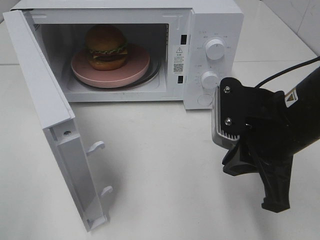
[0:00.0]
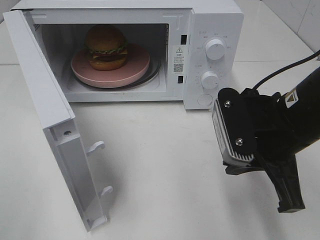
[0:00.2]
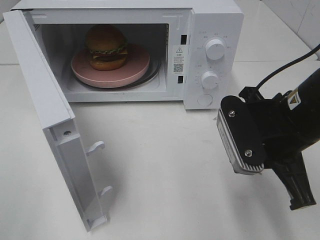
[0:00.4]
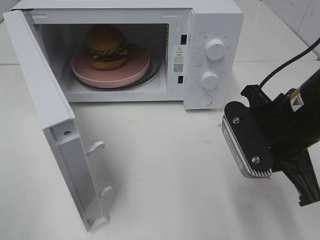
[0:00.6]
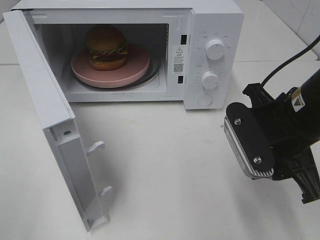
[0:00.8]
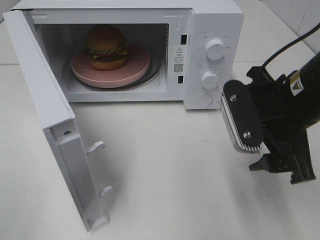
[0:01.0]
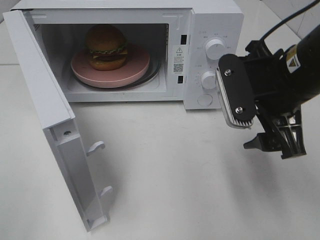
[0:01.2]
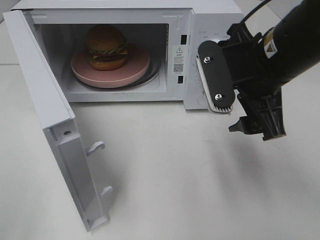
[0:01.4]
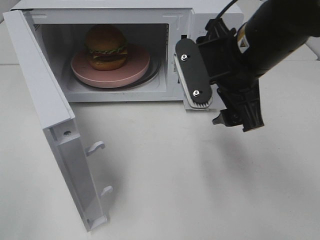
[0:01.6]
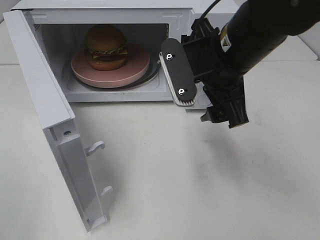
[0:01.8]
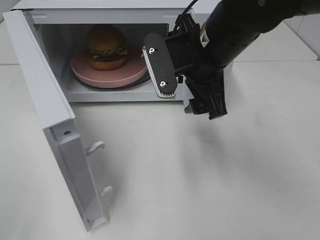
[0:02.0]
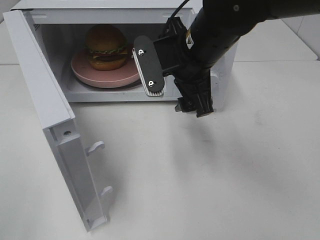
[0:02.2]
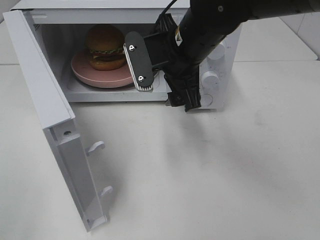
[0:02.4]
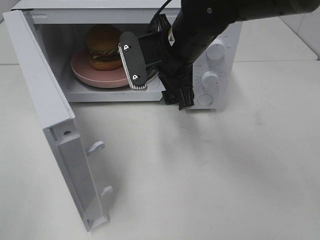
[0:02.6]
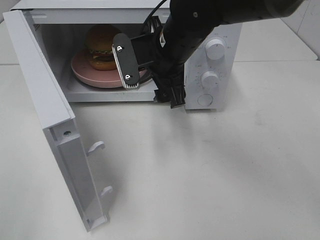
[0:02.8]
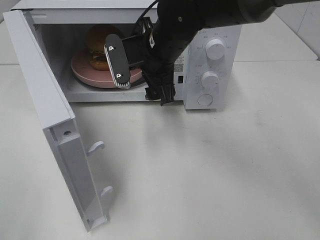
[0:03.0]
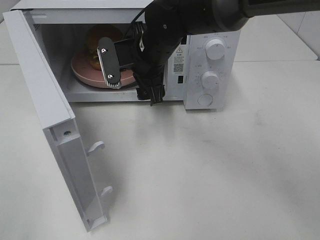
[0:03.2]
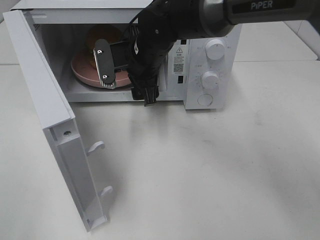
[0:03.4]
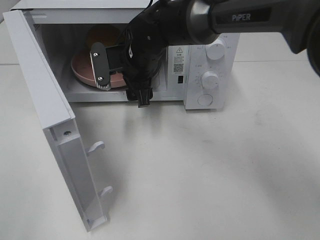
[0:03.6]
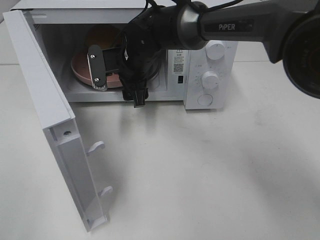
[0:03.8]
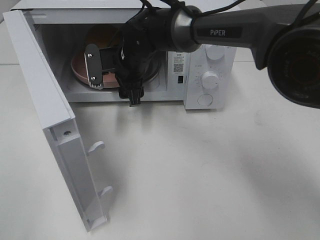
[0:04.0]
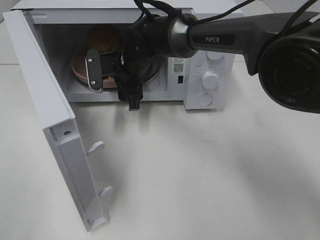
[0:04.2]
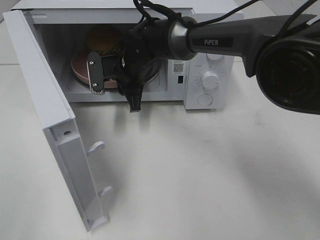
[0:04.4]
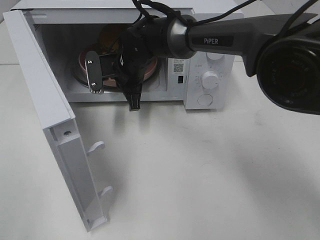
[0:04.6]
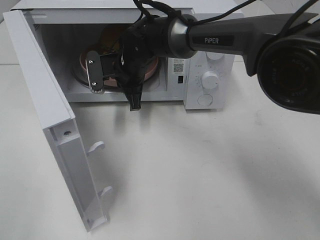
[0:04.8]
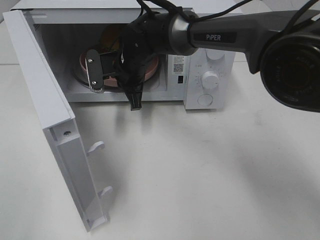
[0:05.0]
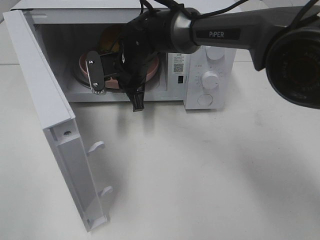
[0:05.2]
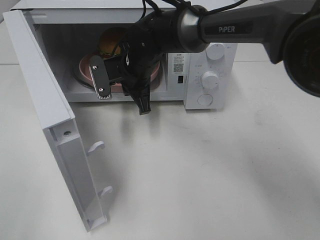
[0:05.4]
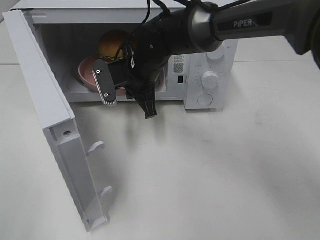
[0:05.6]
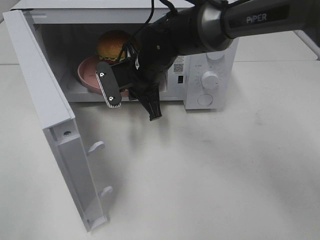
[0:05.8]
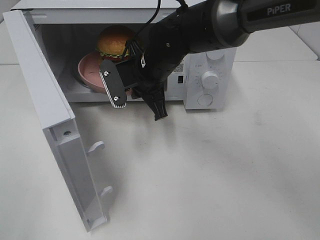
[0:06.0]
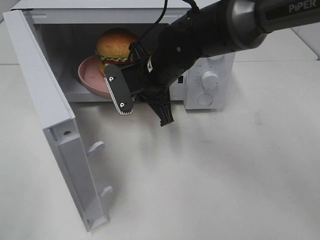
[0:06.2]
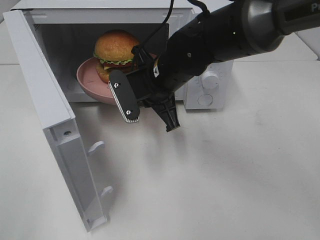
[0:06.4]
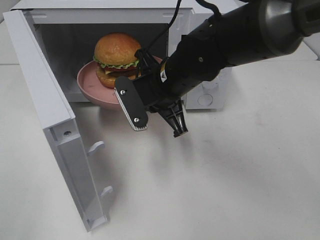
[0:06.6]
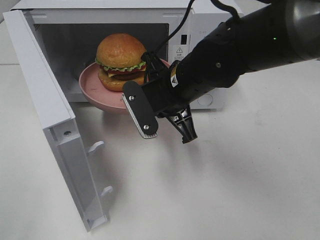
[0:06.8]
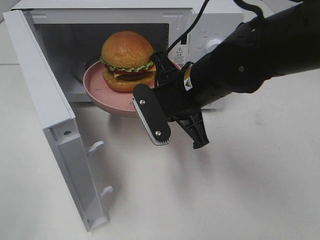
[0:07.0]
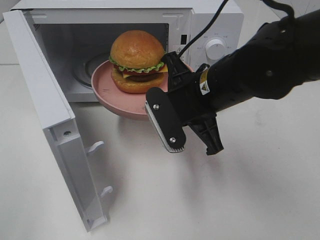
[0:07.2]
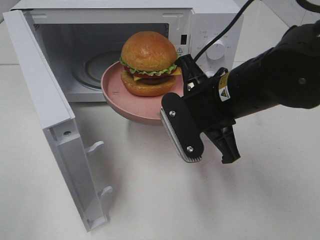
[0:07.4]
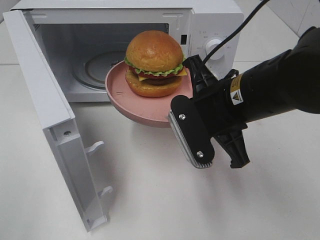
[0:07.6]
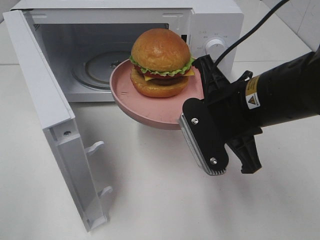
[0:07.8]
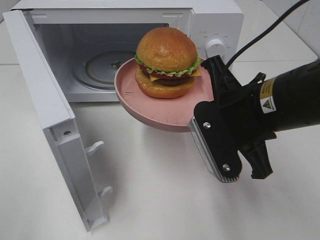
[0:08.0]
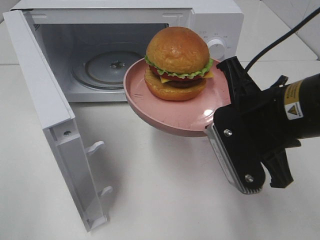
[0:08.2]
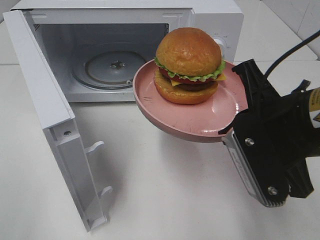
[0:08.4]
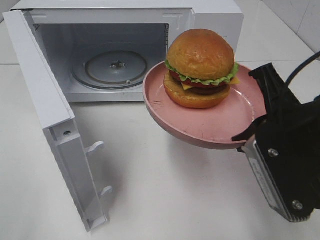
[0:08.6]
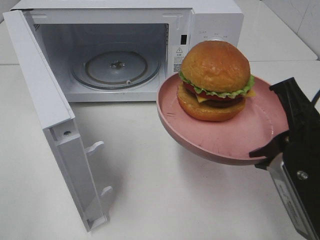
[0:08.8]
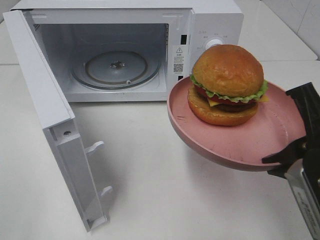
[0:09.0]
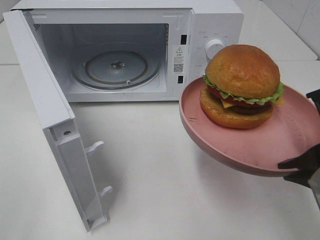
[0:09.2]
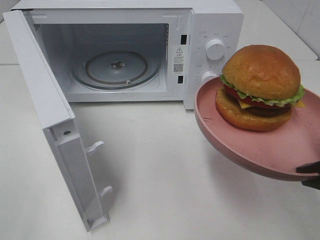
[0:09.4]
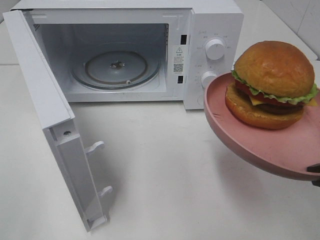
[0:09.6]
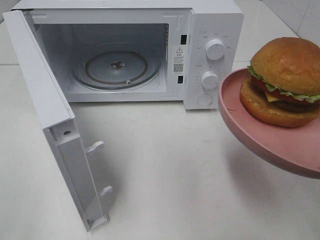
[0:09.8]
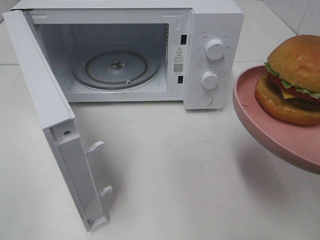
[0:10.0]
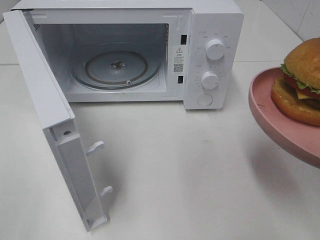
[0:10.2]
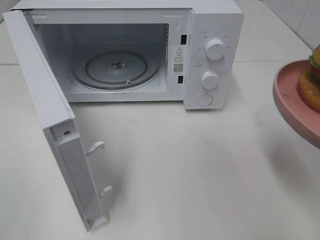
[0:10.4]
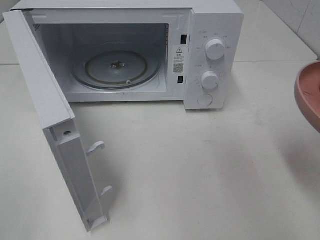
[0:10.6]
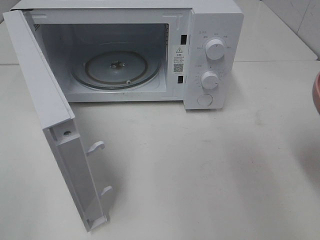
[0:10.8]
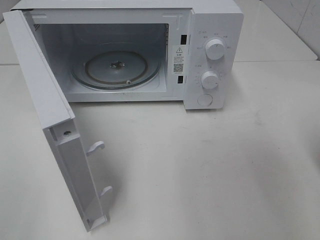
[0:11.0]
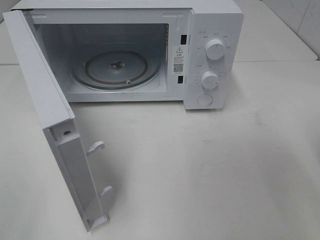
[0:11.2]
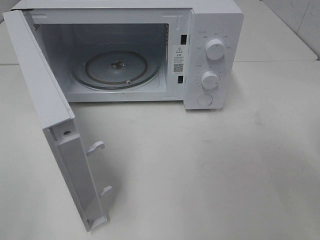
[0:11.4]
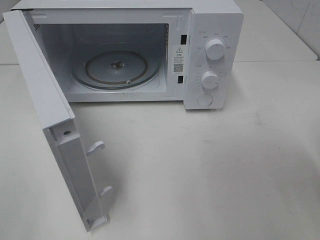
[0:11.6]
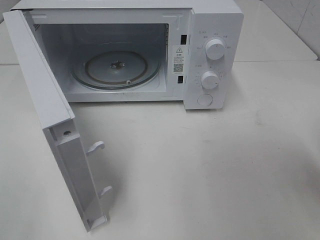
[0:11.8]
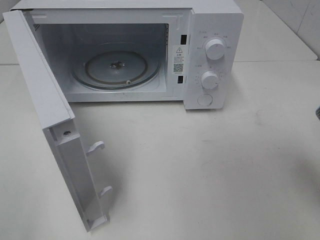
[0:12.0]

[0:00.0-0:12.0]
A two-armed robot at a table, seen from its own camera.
Task of the whole recording: Heat the burger.
Step, 0:00.0 to 0:04.6: Right hand: grab the plate with the hamburger.
0:00.0 to 0:01.6: The right gripper goes some 5 cm forward, and opens.
0:01.6 to 0:03.0: The right gripper travels forward and to the left by roughly 15 cm.
0:03.0 to 0:04.4: The right gripper is displaced downward, forward and to the left by some 10 cm, and closes its fingers.
0:04.4 to 0:06.0: The right gripper moves backward, roughly 5 cm.
0:06.0 to 0:07.6: The right gripper travels backward and to the right by roughly 15 cm.
0:07.6 to 0:09.0: The right gripper moves backward and to the right, some 15 cm.
0:09.0 to 0:10.4: The right gripper is displaced to the right by about 5 cm.
0:10.4 to 0:12.0: The right gripper moves forward, about 5 cm.

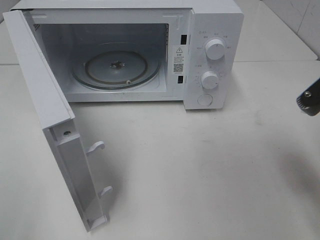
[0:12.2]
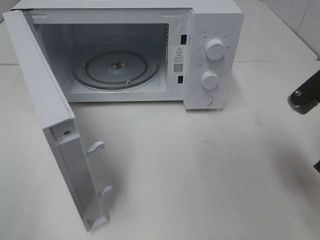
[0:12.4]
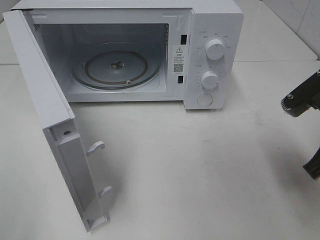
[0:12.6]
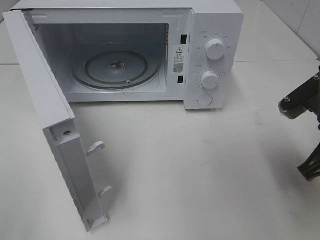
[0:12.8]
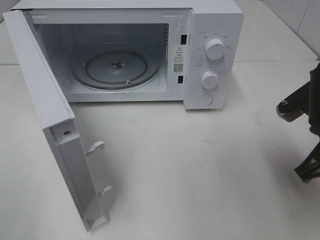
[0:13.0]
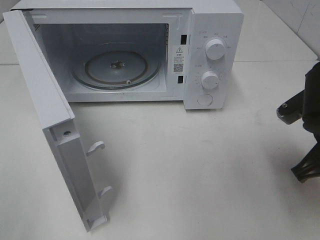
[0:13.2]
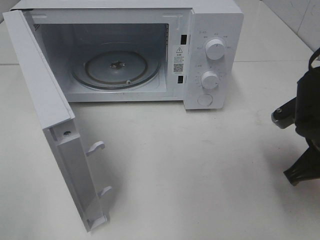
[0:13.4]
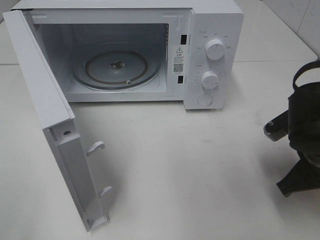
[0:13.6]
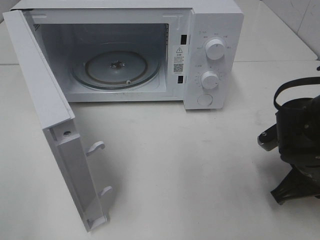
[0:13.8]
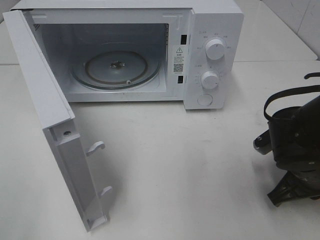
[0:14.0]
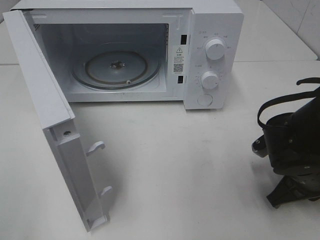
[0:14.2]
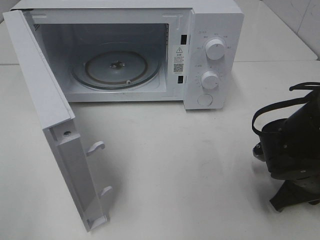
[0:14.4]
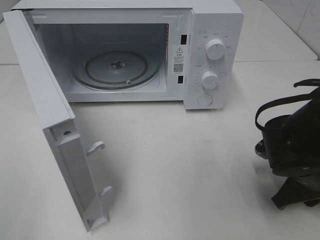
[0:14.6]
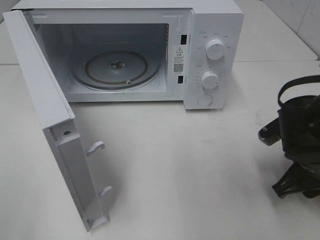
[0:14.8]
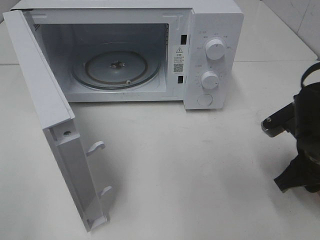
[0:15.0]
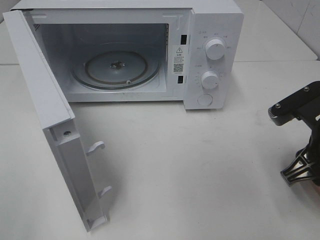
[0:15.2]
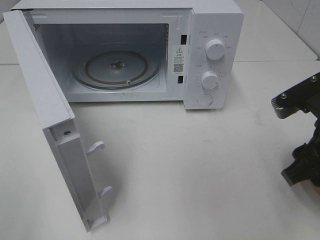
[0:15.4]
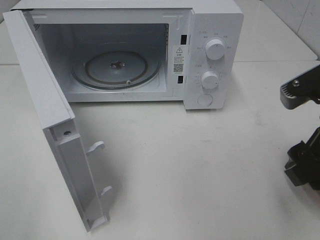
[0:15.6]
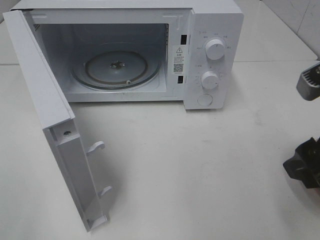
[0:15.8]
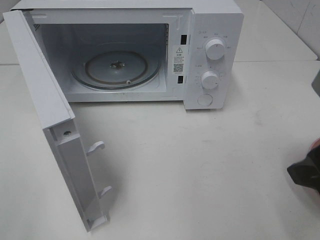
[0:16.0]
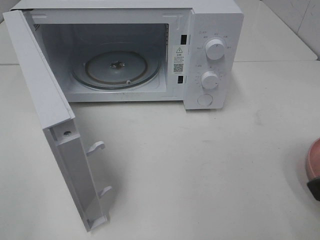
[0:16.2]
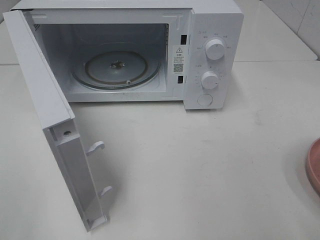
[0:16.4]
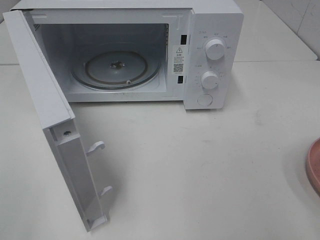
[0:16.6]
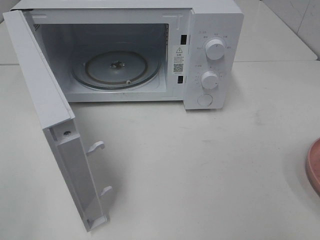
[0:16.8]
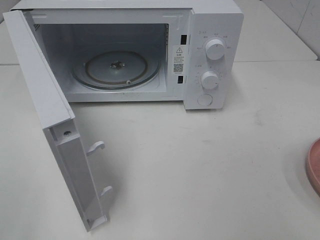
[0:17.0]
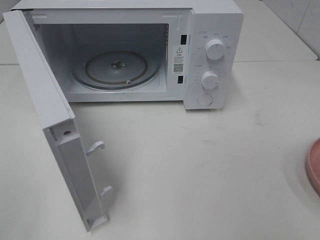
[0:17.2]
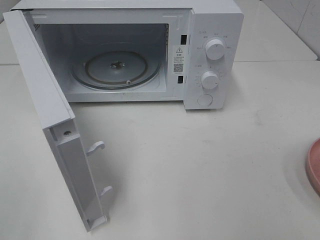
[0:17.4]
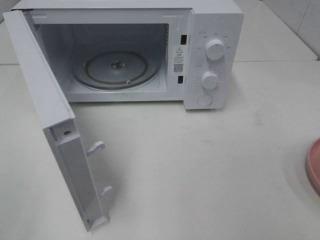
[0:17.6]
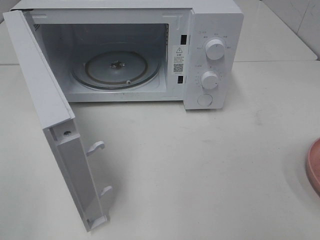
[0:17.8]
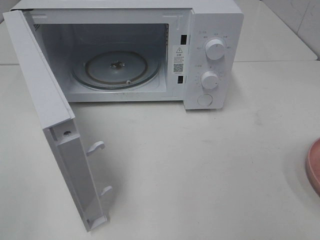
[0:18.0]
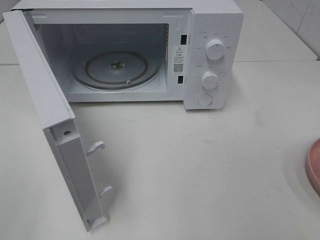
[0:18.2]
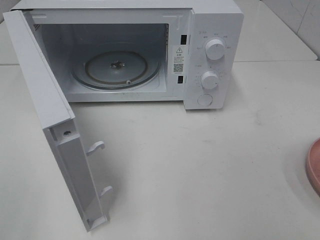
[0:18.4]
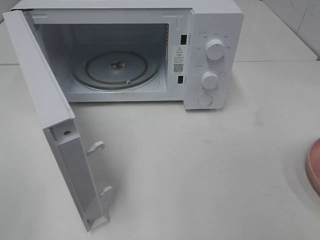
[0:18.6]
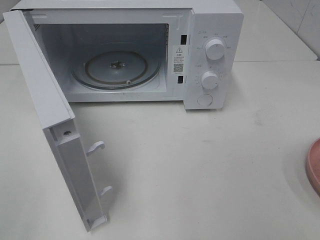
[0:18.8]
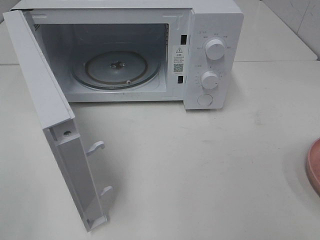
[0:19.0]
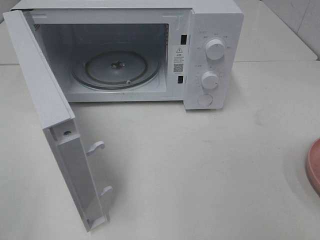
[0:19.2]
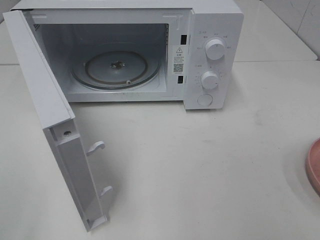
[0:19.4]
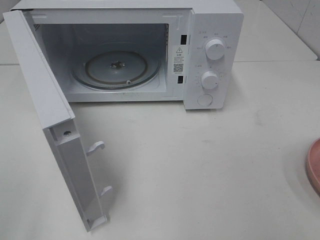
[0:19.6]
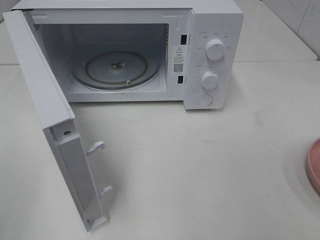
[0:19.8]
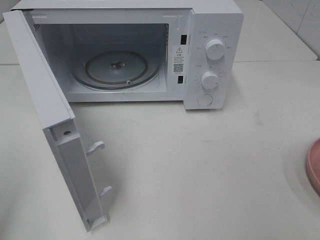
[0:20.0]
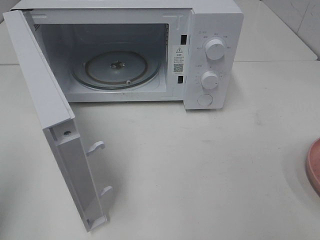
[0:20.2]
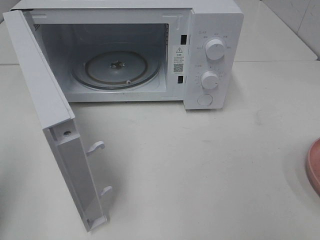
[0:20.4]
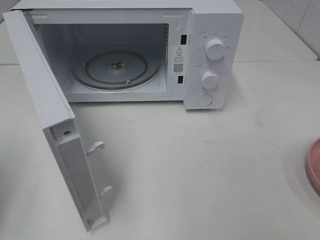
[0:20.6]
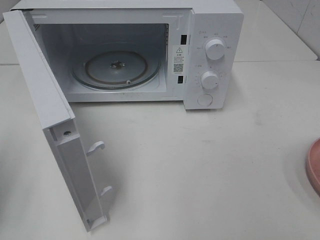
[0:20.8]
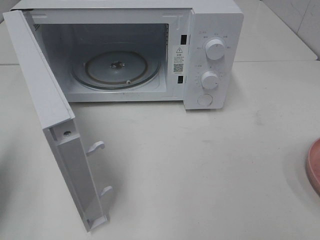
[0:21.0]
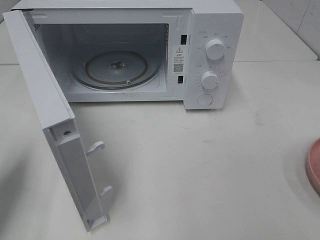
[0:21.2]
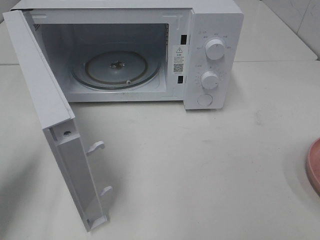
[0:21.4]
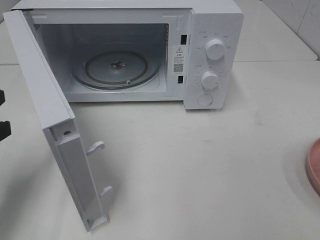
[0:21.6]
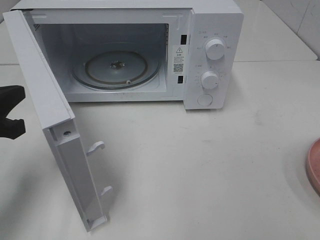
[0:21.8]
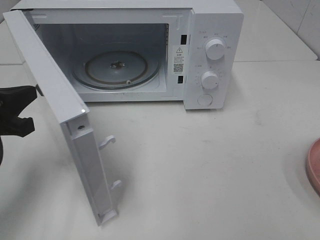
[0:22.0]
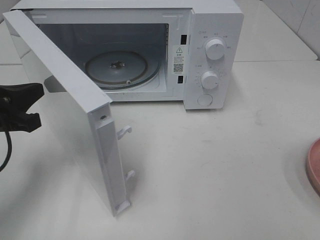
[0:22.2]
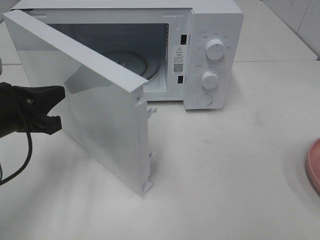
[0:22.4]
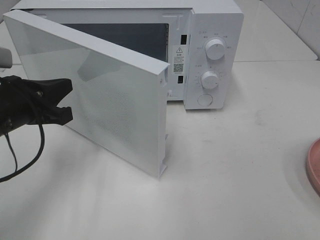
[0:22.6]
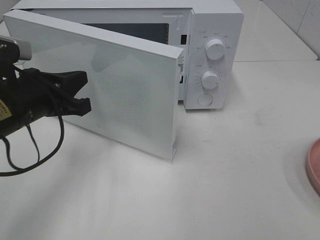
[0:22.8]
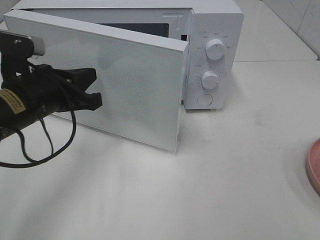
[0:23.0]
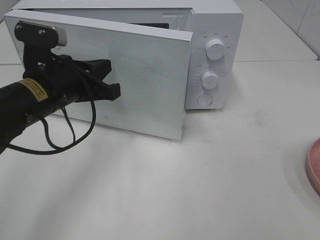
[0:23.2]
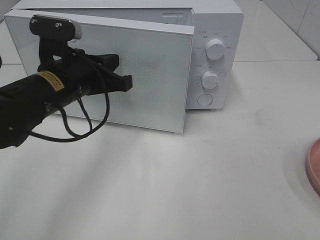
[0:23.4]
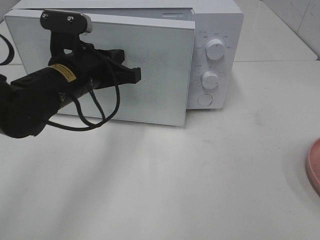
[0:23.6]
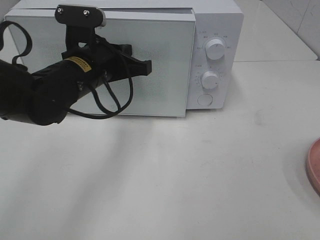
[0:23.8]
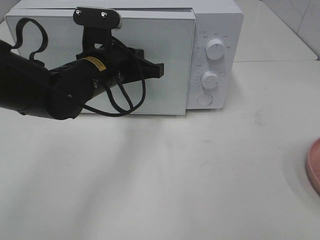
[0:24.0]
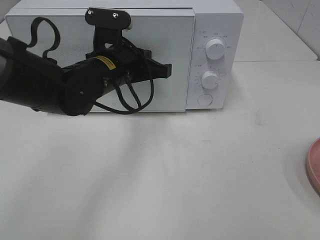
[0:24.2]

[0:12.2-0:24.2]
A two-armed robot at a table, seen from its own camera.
Task of the whole recording: Heat the burger.
Step, 0:12.2 to 0:15.0: Right hand: place the plate on the table.
0:12.2 to 0:13.8: The right gripper is displaced downward by about 10 cm.
0:13.8 to 0:15.2: The right gripper travels upward by about 5 cm, and opens.
0:15.2 to 0:16.6: The right gripper moves backward and upward, roughly 20 cm.
0:19.8 to 0:21.2: The left gripper shifts approximately 15 cm forward and downward, and closes its fingers.
0:21.2 to 0:22.6: The left gripper heads to the right and forward, covering some 10 cm.
0:22.6 to 0:24.2: The left gripper shifts about 15 cm to the right and forward.
